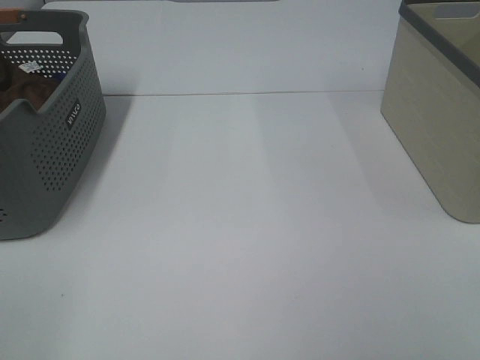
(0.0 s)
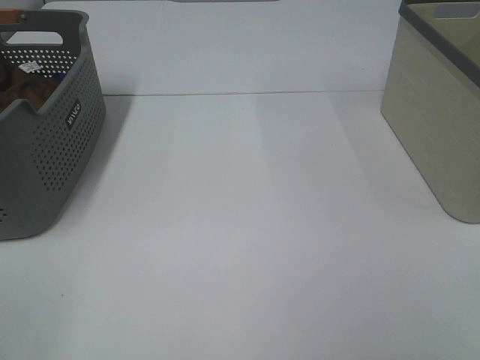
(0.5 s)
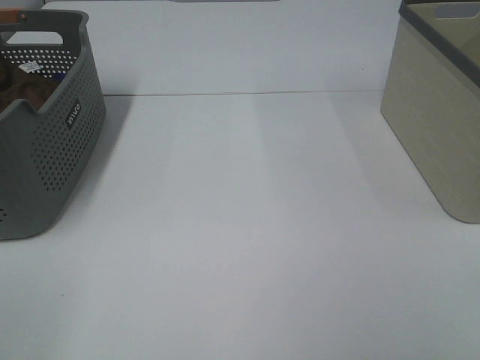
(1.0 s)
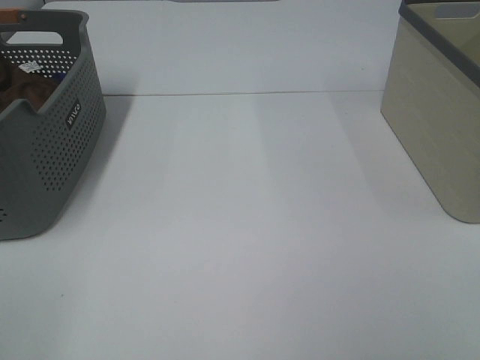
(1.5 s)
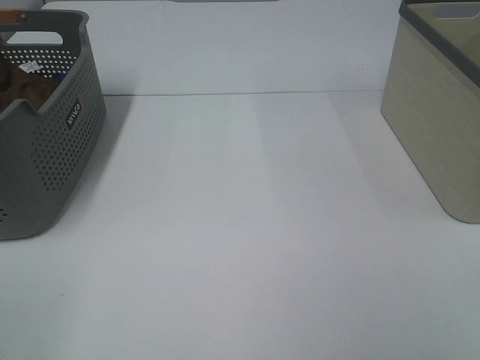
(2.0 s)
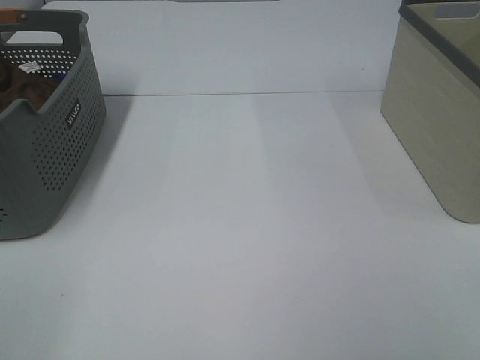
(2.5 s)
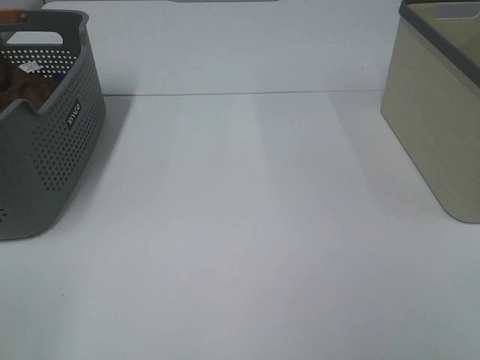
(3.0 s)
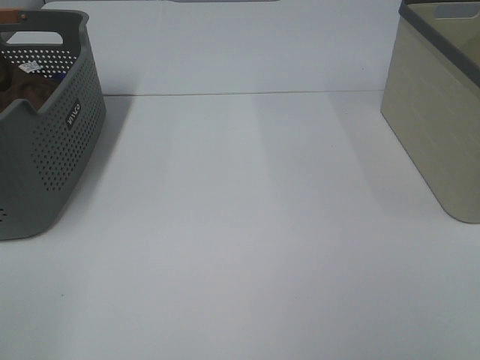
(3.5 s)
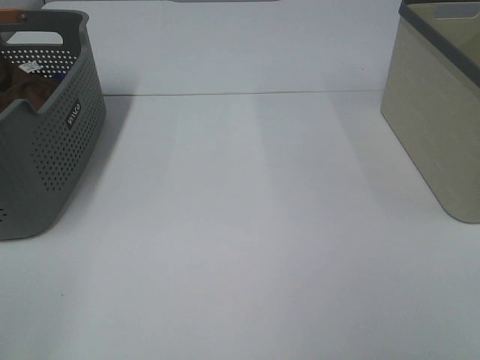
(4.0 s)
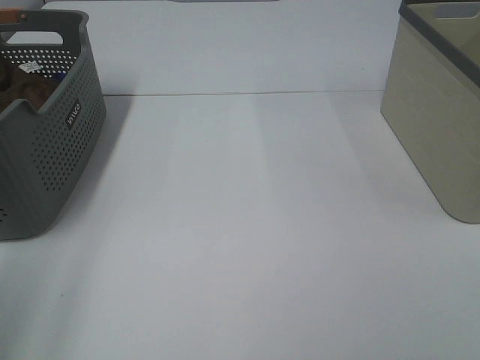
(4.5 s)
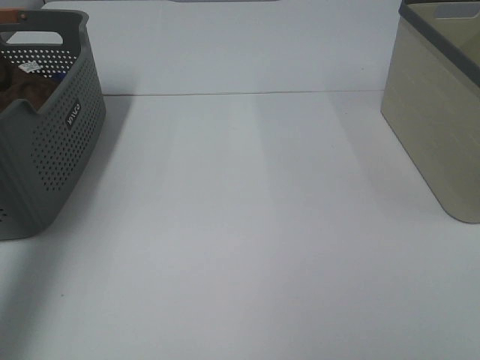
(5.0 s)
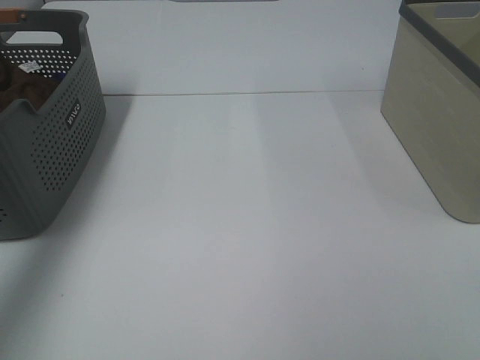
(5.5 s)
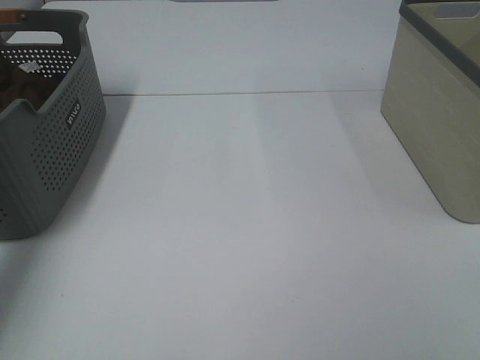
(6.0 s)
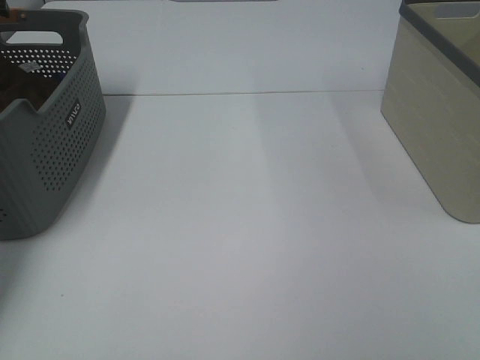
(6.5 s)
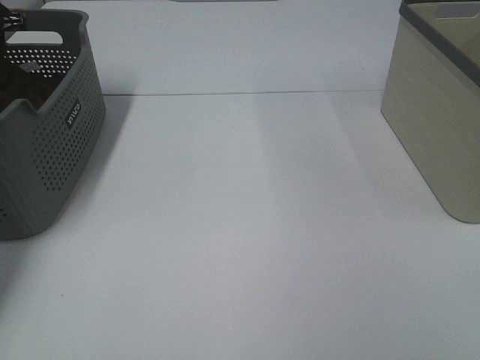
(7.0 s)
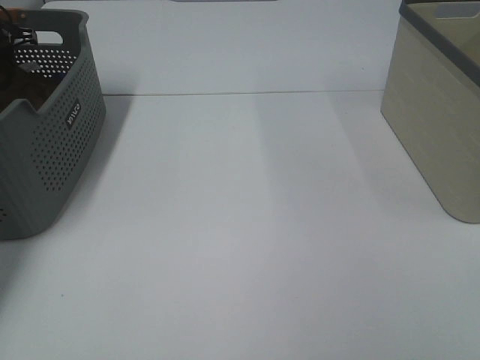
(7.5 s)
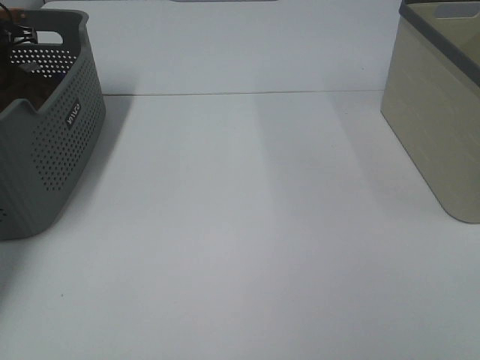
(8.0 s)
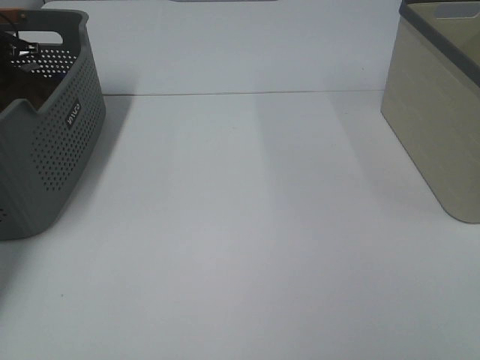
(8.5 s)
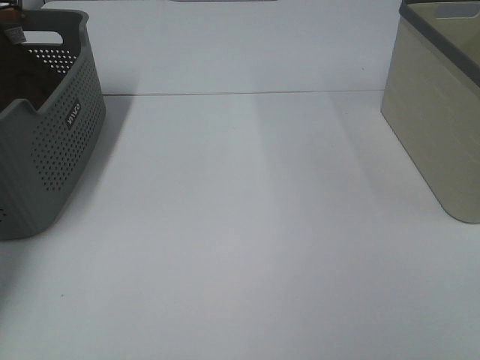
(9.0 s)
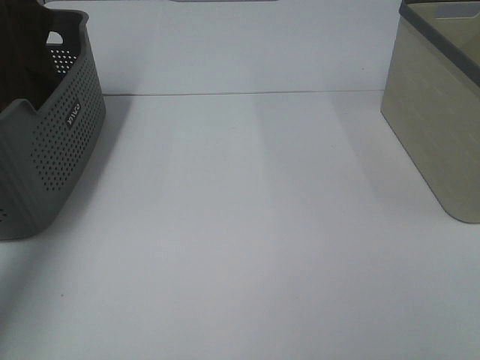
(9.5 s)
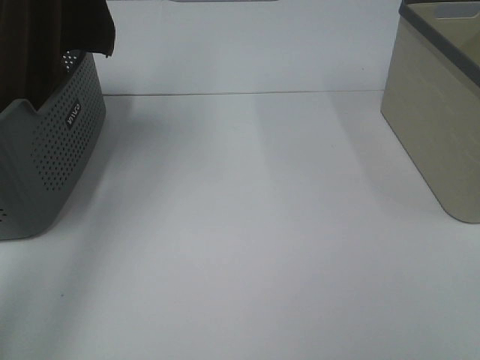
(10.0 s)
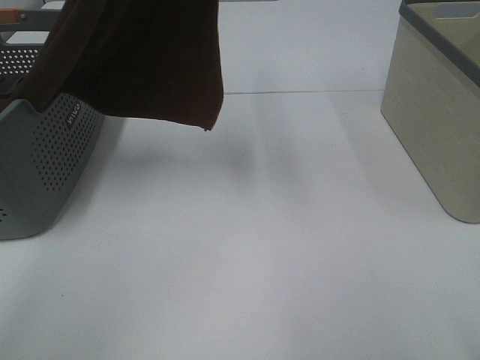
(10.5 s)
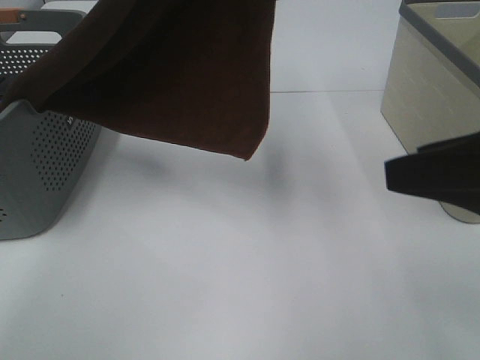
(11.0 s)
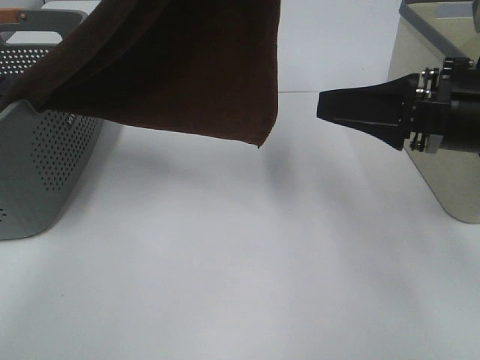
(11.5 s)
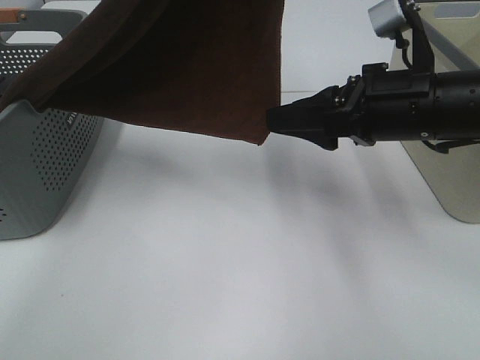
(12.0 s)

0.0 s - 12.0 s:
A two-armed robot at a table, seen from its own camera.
Task of the whole recording: Remove the towel and place it.
Step, 9.0 s - 11.5 s: Right hand: grab a corner of the brown towel and straighten it.
0.0 s - 2.0 s: The two grippers keep their place.
4.0 s - 6.0 s: The left gripper moves forward, approximately 50 cm.
6.0 s - 8.0 s: The left gripper is displaced downward and forward by about 15 cm, and closes.
8.0 s - 10.0 s: The left gripper heads upward, to the right and backward, covering some 40 cm.
10.0 s - 12.0 s: The left gripper shifts about 20 cm to the right and backward, while the right gripper shifts about 30 cm forward and to the left.

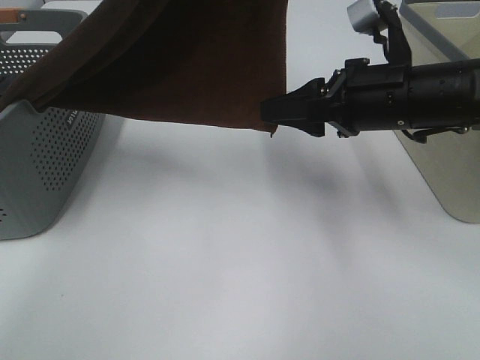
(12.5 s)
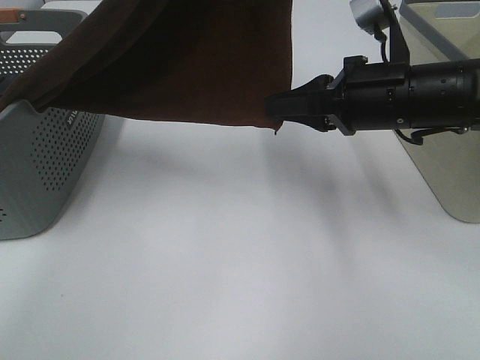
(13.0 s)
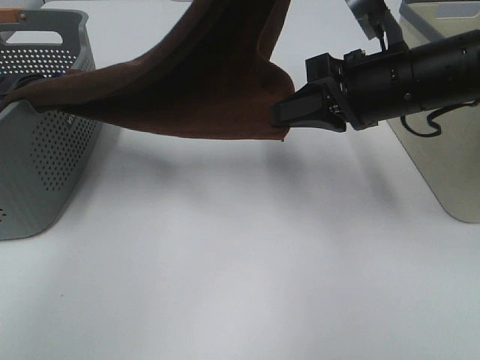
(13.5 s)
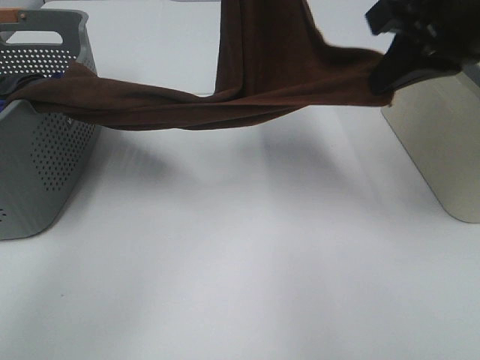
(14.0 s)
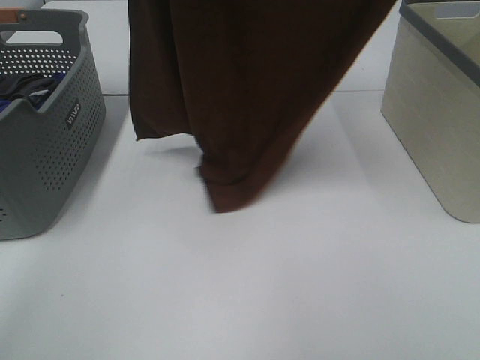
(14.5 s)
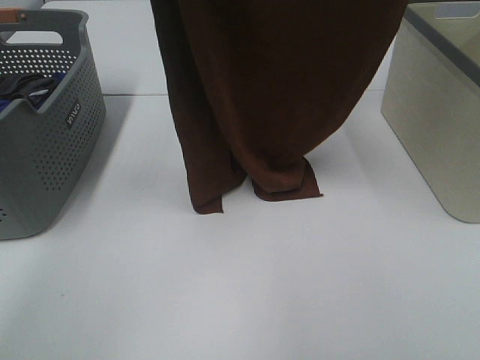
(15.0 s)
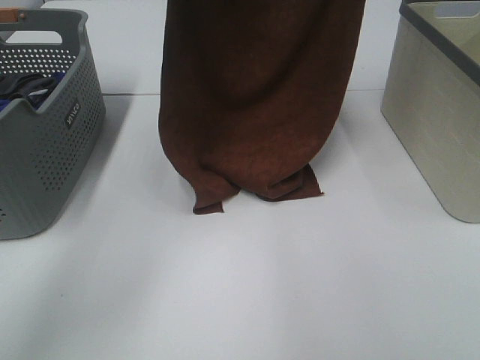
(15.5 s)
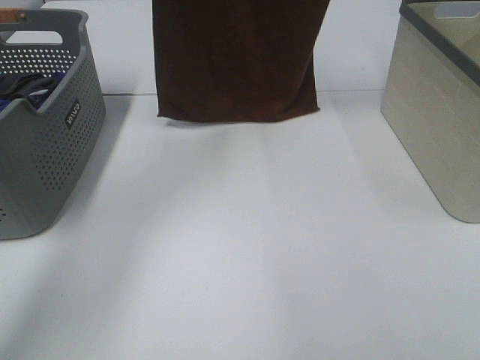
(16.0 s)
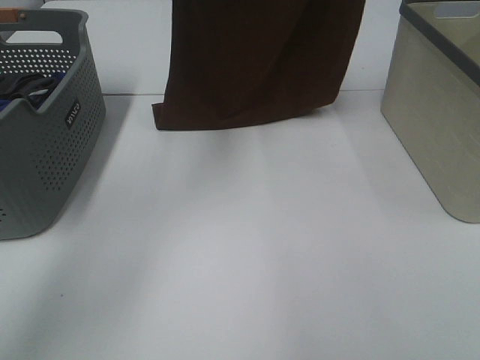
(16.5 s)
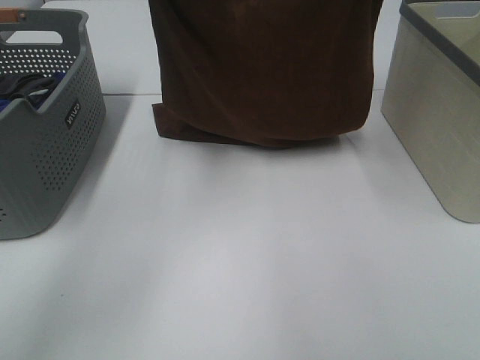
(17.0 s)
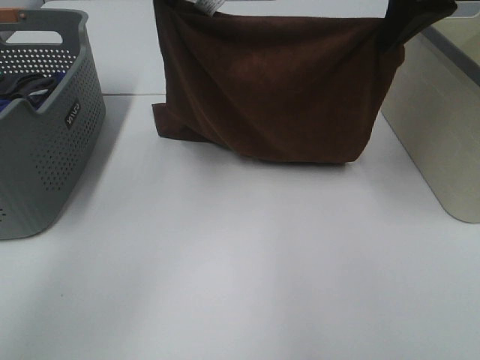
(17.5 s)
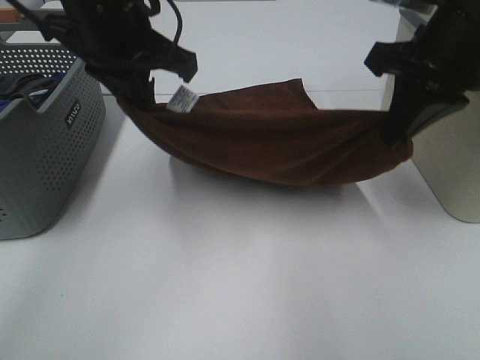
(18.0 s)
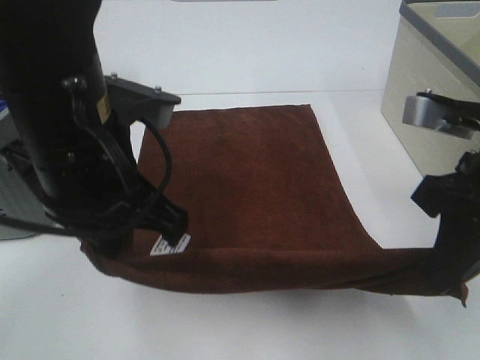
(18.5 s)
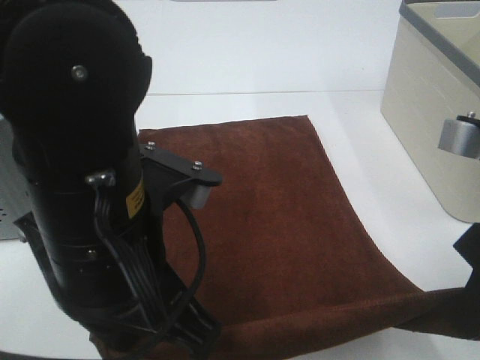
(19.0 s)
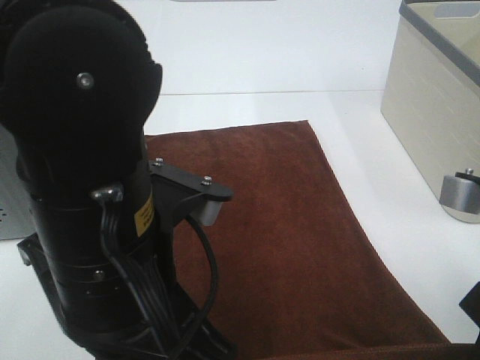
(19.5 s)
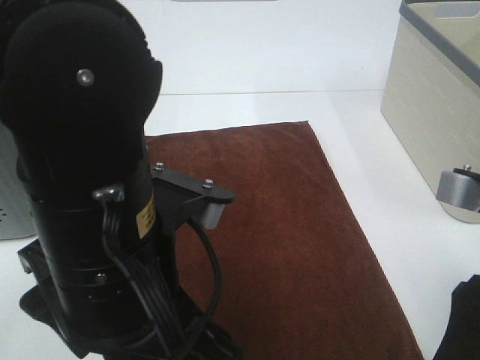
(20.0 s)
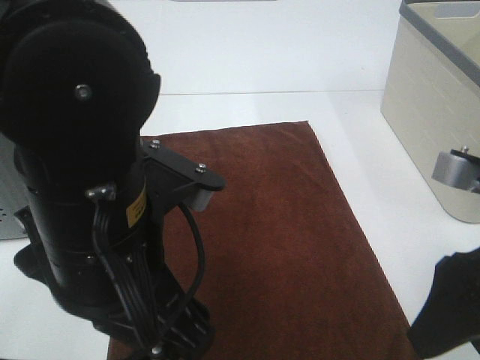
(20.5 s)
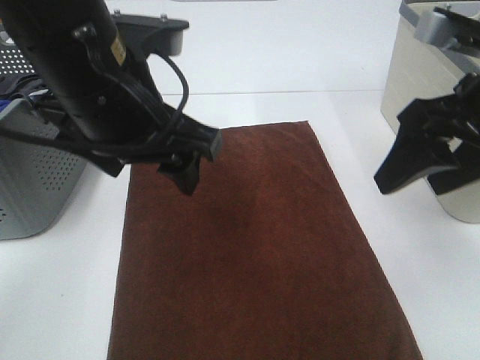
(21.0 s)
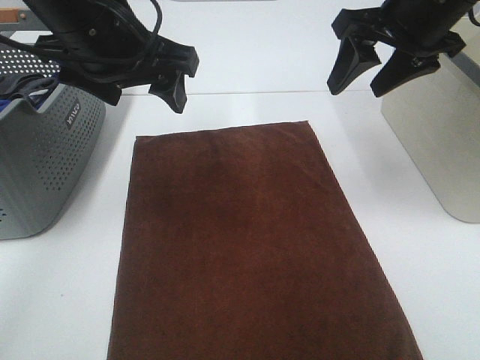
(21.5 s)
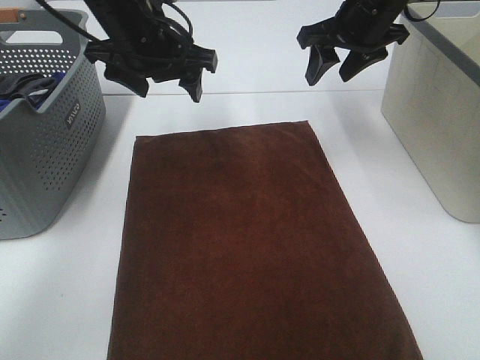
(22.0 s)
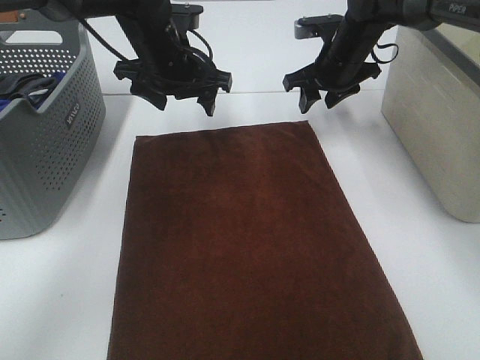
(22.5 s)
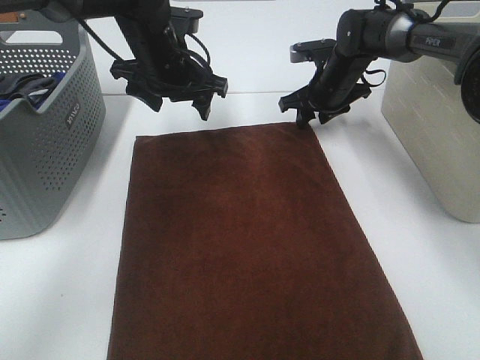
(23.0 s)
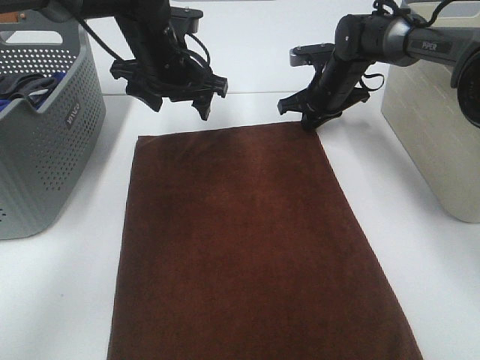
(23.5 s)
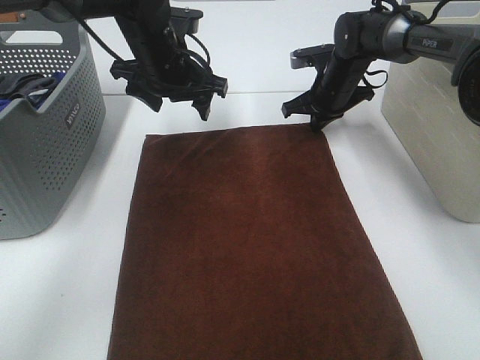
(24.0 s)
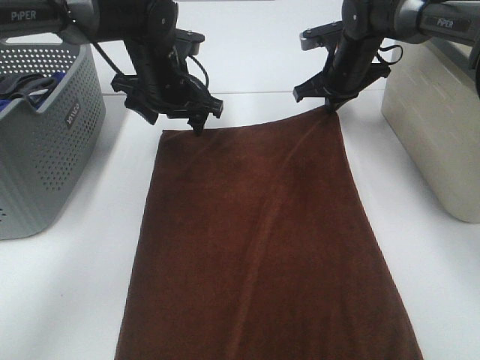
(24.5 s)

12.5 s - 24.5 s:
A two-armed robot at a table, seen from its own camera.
Task of the whole recording: Remove the towel and place it.
Step, 12.5 s - 16.0 s: Left hand: spread the brown towel flat on the table.
Step, 12.5 s - 16.0 s: Right hand: spread the brown towel flat on the table.
Step, 16.5 s - 23.5 s: Left hand:adjust the brown towel.
Step, 16.5 s - 23.5 s: Right hand:adjust the brown towel.
12.5 s - 14.5 s: The right gripper moves upward, roughly 30 cm, and closes. Meanwhile the left gripper goes roughly 10 cm to the left and upward.
14.5 s - 16.5 s: The left gripper moves up and down over approximately 15 cm, changing direction 2 times. Meanwhile the right gripper moves forward and downward, roughly 15 cm.
16.5 s - 18.5 s: The grippers both shift backward and downward by approximately 30 cm.
18.5 s - 20.5 s: The left gripper goes roughly 5 cm backward, and opens; the right gripper shifts by approximately 5 cm, and opens its fingers.
20.5 s - 22.5 s: Both grippers move forward, roughly 35 cm.
22.5 s - 24.5 s: The right gripper closes its fingers.

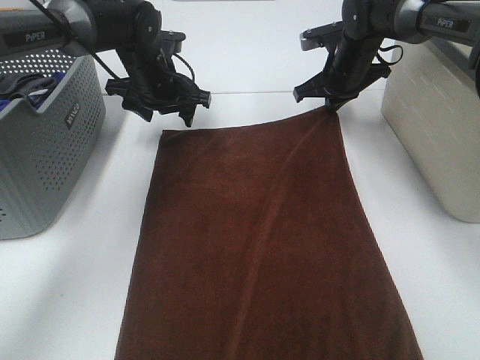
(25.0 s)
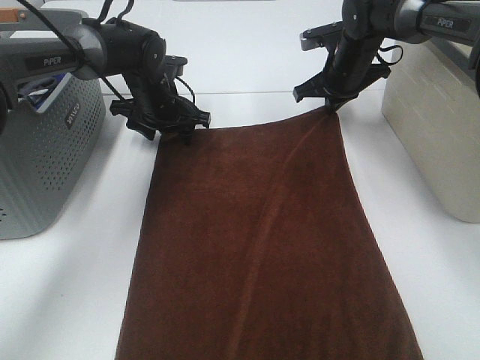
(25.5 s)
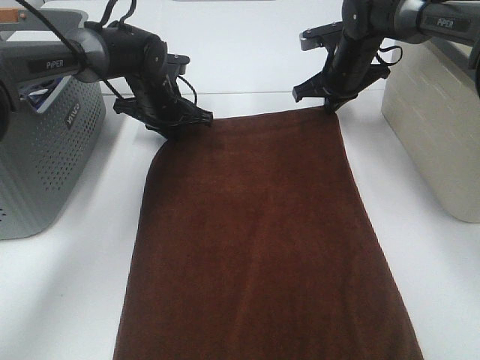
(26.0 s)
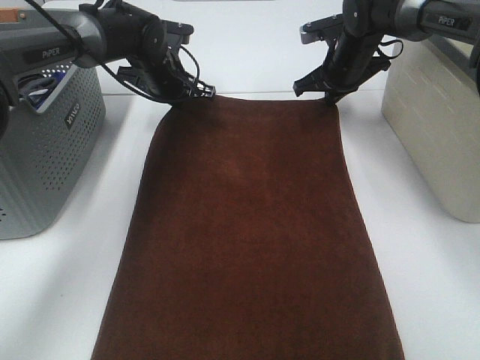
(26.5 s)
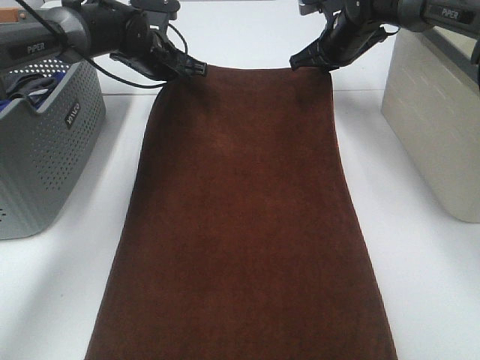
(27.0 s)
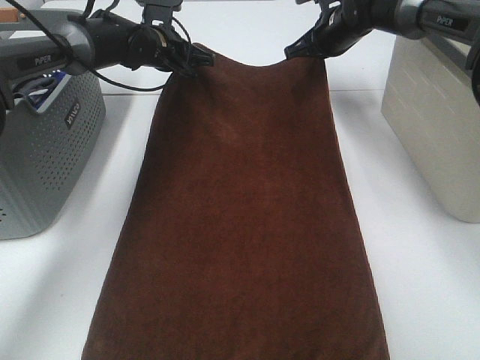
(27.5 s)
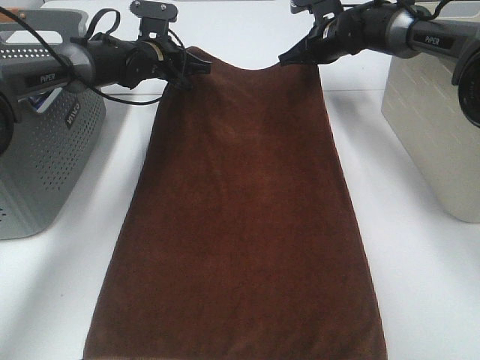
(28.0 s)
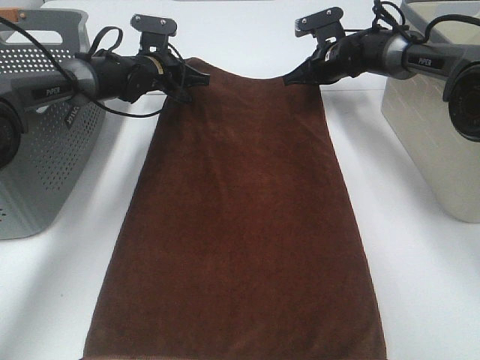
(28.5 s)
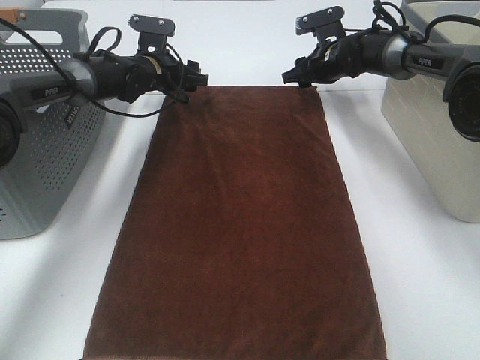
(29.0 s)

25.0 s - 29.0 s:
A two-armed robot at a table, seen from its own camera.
Task of the whole recording: Remove the towel and place it.
25.0 s - 27.0 s: The left gripper closes its fingers.
27.0 s - 29.0 s: The two grippers go about 5 cm downward. The left gripper opens. Meanwhile the right gripper opens up.
